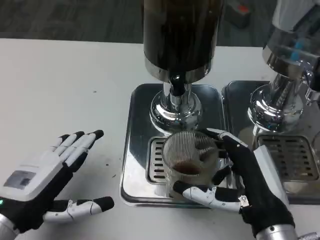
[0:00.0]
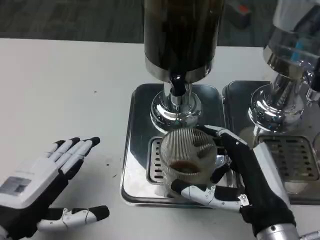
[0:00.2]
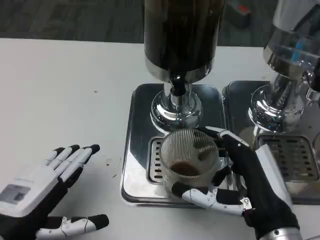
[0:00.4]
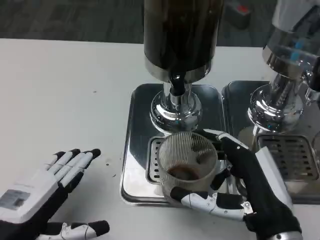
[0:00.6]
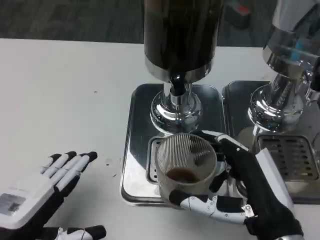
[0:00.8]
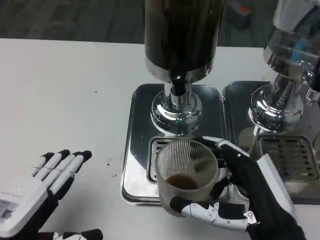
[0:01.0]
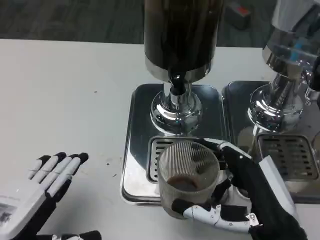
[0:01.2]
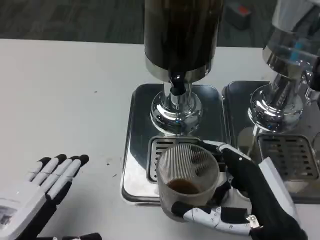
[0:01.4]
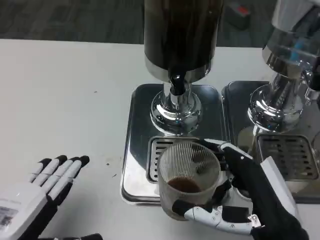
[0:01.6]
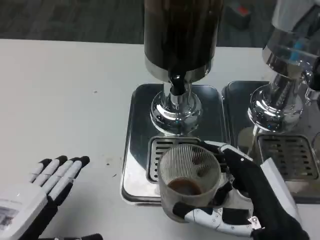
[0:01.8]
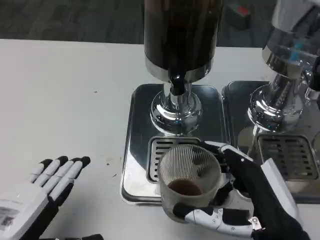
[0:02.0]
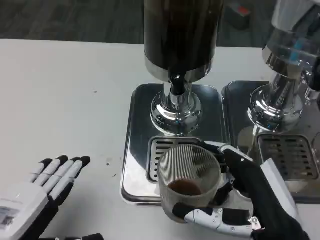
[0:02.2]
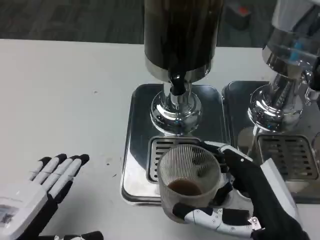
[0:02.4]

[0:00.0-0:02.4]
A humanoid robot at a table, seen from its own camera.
Task of the whole recording: Grasp the cup under the faucet to collect the drink, then remove the cup.
0:00.0 to 0:01.2: The left hand is displaced backward by roughly 5 cm.
0:01.2 to 0:02.4: Both hands stay about where they are.

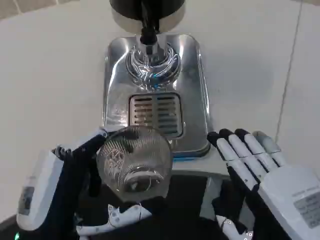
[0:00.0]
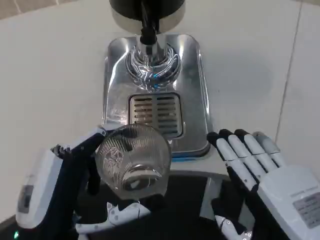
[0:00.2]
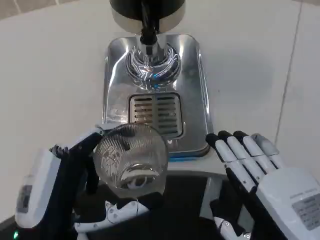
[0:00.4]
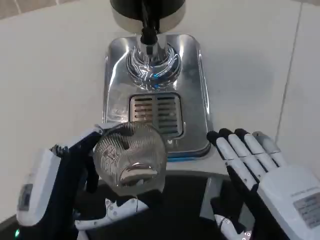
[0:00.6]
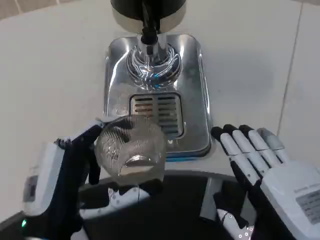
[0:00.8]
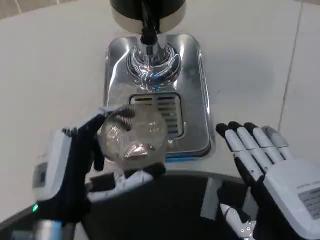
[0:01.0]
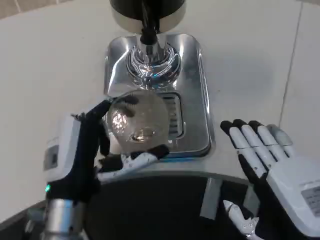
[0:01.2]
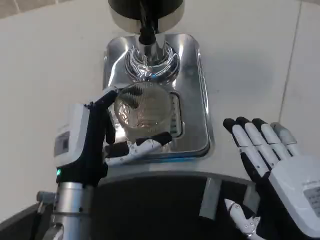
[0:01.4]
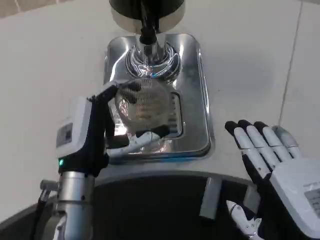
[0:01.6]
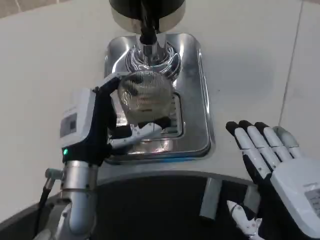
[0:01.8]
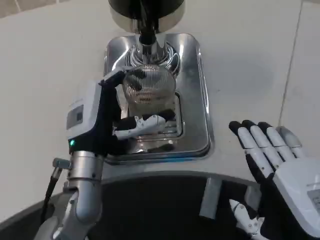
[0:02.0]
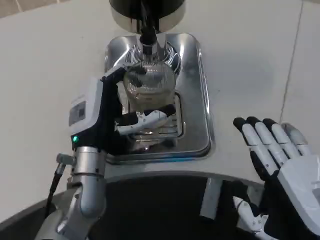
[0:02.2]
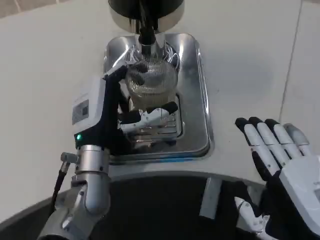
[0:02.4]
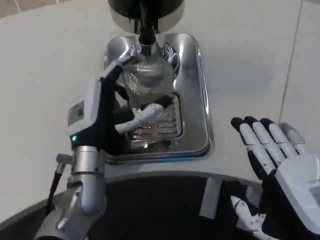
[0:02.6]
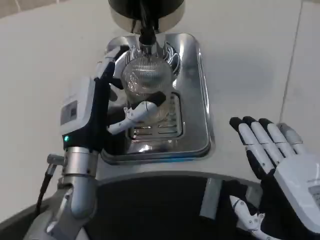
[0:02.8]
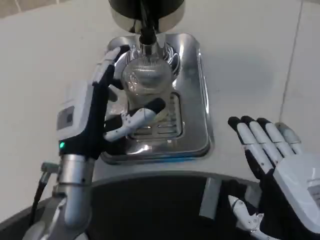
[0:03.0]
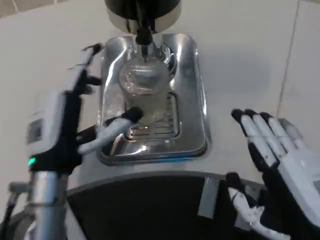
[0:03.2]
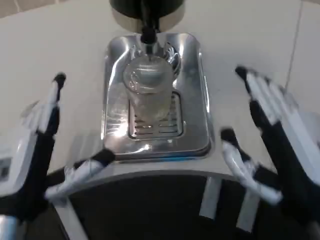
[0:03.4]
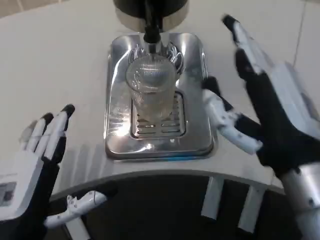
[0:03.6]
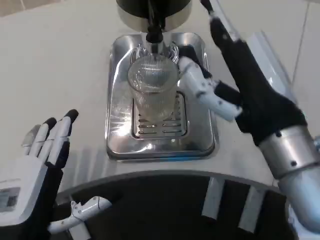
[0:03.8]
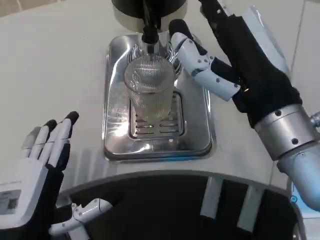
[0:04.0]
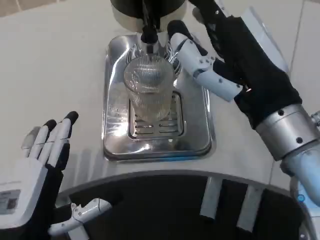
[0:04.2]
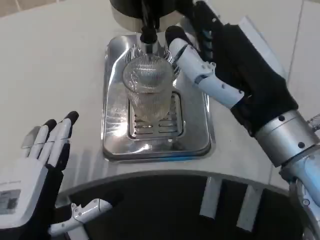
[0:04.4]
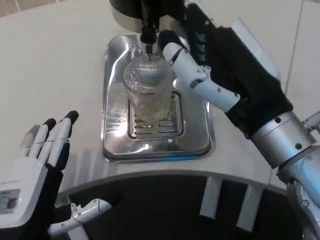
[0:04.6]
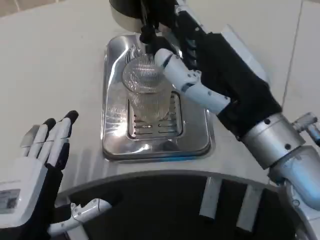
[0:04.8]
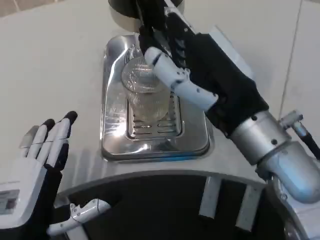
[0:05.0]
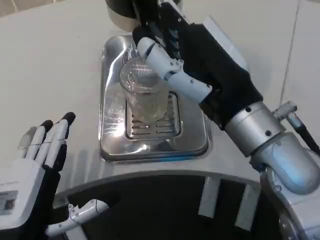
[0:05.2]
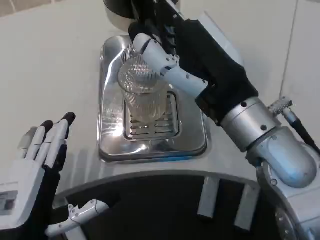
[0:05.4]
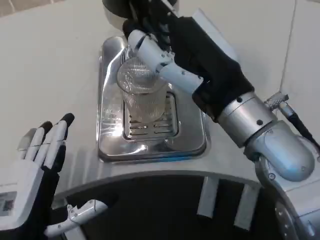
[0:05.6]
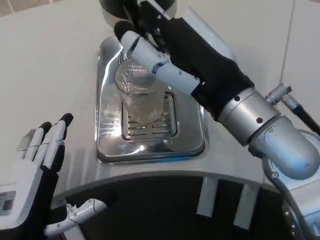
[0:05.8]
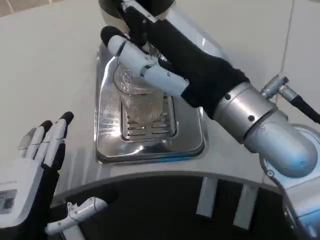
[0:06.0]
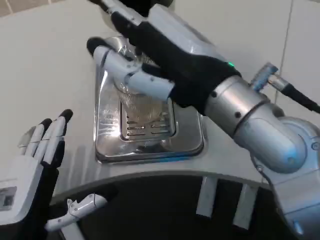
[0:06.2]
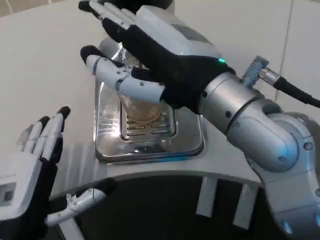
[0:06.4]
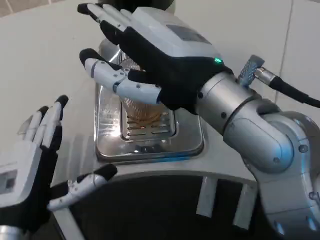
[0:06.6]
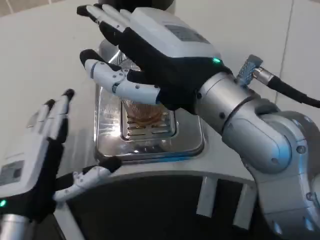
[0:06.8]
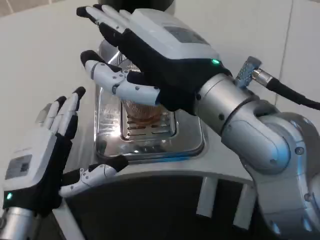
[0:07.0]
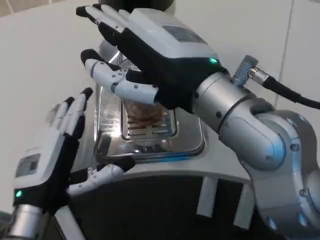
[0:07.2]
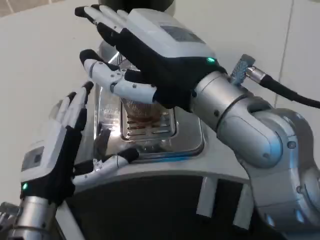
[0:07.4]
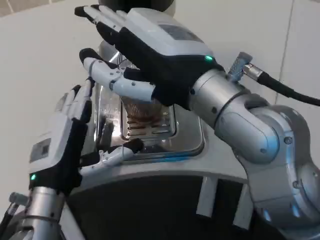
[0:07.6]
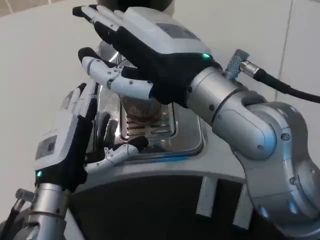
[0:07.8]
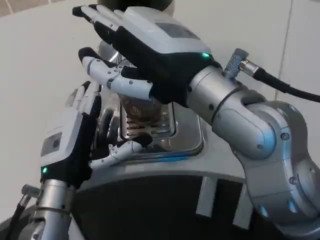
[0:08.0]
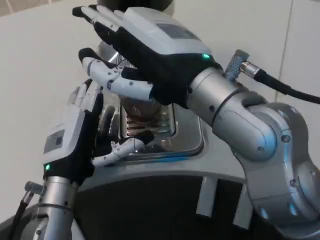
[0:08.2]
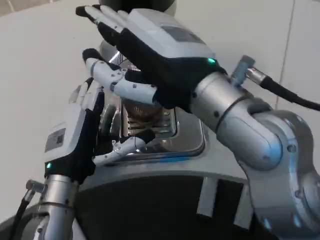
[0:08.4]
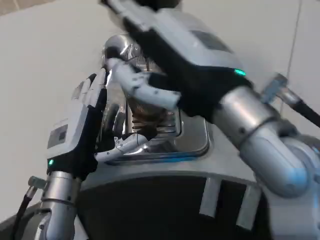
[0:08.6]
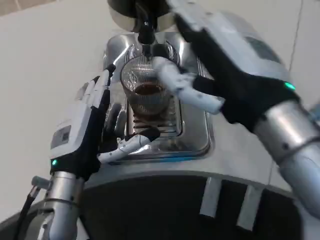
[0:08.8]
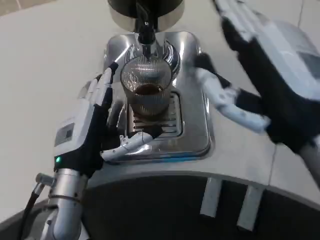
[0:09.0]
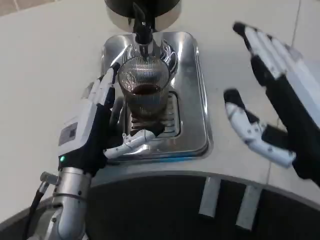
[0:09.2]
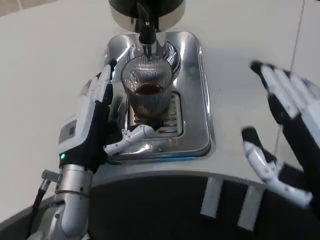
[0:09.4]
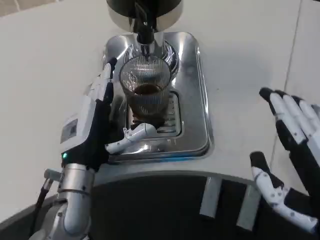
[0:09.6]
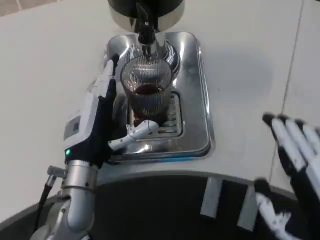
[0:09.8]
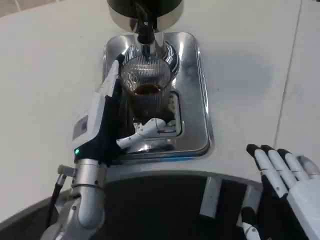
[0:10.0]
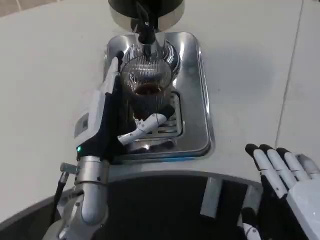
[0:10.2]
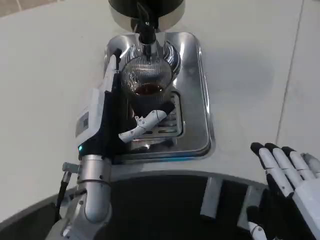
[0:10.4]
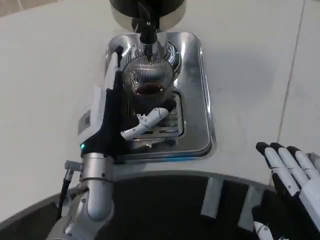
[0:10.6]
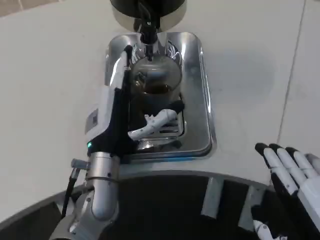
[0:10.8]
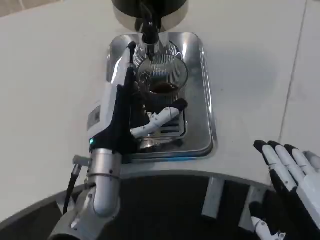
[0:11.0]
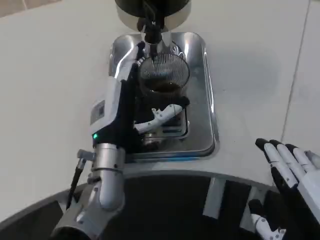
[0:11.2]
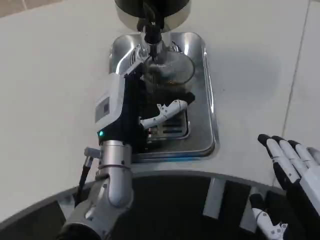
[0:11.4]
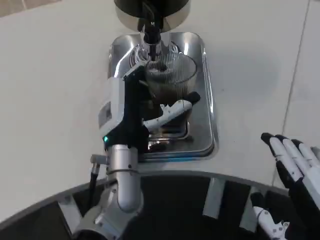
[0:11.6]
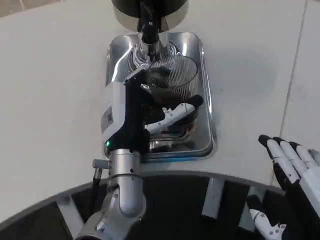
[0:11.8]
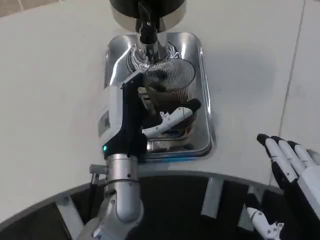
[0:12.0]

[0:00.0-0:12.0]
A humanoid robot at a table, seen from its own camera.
Task of the whole recording: Grasp the cup under the faucet to collect the drink, then remove the cup.
0:00.0 to 0:01.6: The left hand shifts approximately 10 cm forward.
0:01.6 to 0:03.0: The hands move only a little.
0:03.0 to 0:04.4: The left hand shifts about 15 cm backward and to the left. Meanwhile the right hand moves forward, upward and to the left, about 15 cm.
0:04.4 to 0:06.0: The right hand changes place by roughly 5 cm.
0:06.0 to 0:07.6: The left hand moves forward, about 10 cm.
0:07.6 to 0:09.0: The right hand shifts some 10 cm to the right and backward.
0:09.0 to 0:10.4: The right hand heads downward and backward, covering about 10 cm.

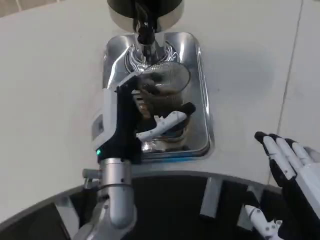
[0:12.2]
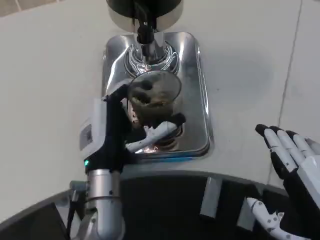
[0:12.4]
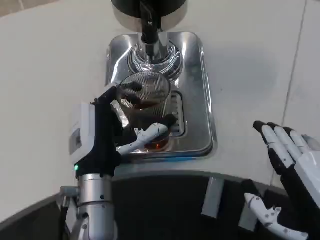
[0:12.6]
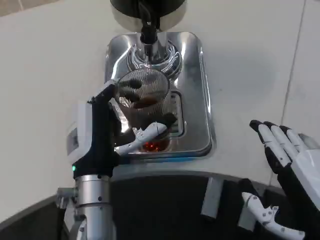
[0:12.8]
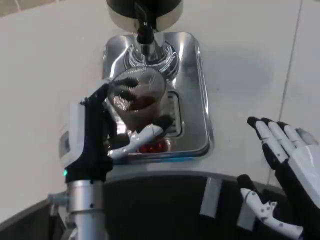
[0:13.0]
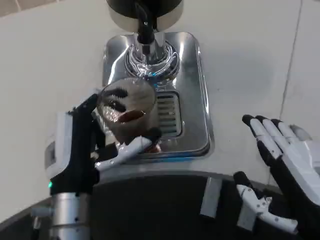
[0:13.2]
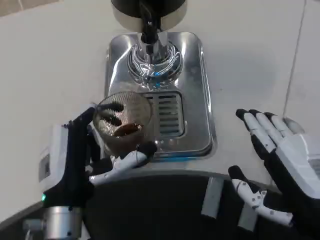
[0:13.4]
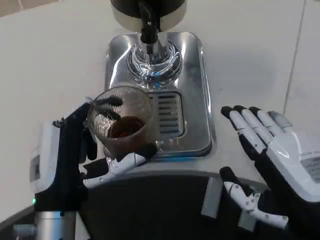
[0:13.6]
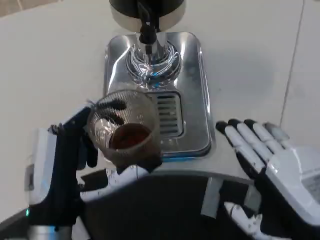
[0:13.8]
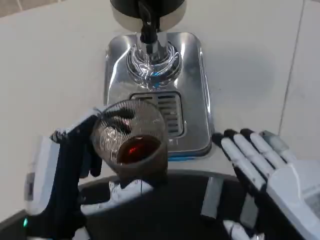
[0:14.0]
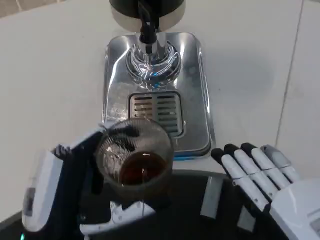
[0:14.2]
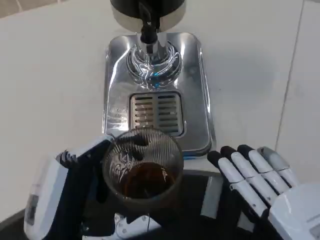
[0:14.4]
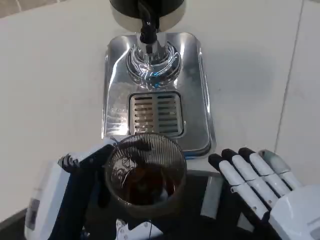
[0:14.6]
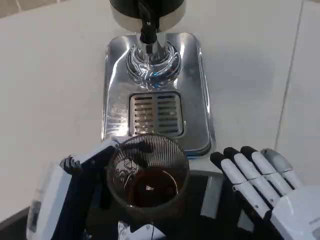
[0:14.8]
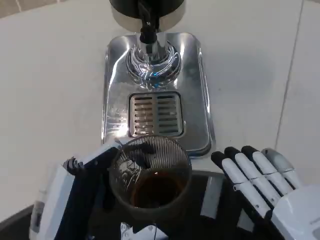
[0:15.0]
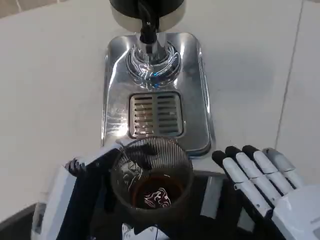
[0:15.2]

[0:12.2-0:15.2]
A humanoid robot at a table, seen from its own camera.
Task of the whole recording: Grasp the cup under the faucet to collect the drink, then remove the cup.
0:12.2 to 0:13.8: The left hand travels backward and to the left by some 15 cm.
0:13.8 to 0:15.2: The left hand moves backward, approximately 5 cm. The right hand ends up some 5 cm from where it was.

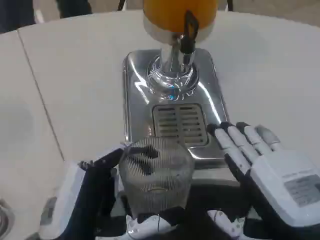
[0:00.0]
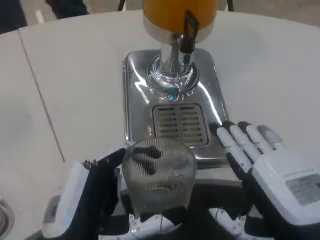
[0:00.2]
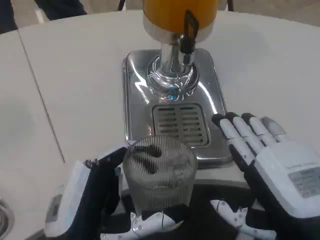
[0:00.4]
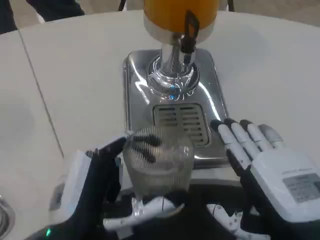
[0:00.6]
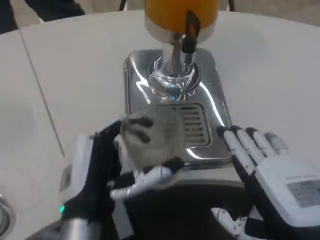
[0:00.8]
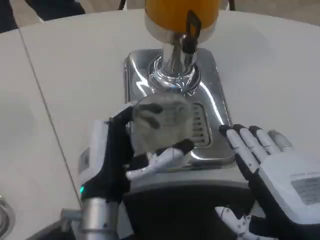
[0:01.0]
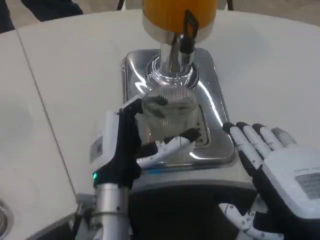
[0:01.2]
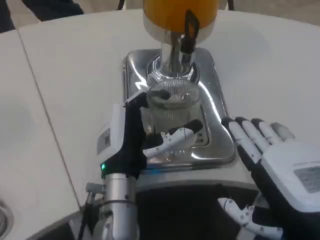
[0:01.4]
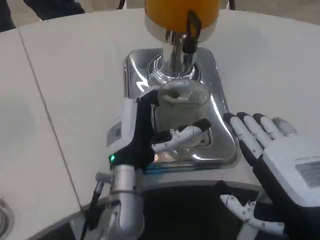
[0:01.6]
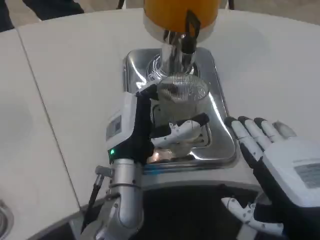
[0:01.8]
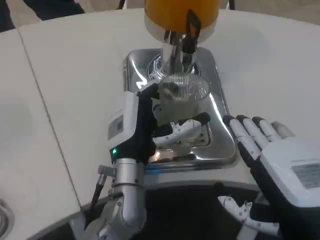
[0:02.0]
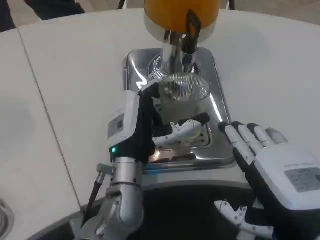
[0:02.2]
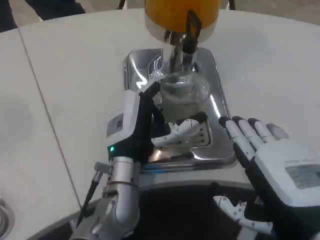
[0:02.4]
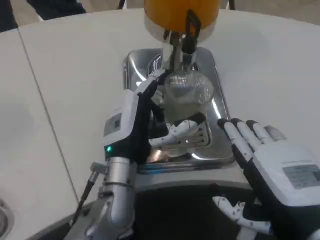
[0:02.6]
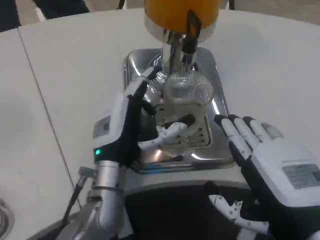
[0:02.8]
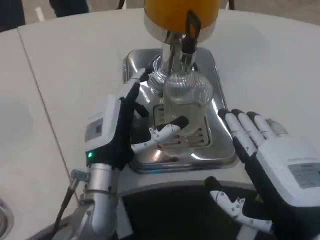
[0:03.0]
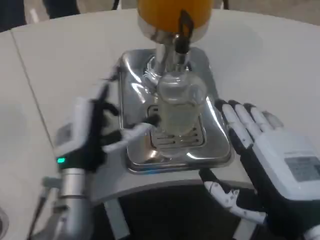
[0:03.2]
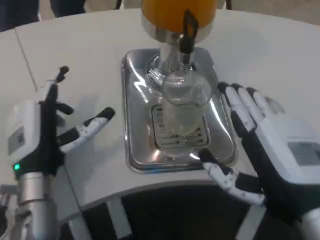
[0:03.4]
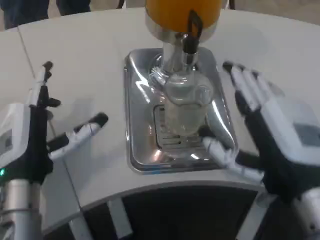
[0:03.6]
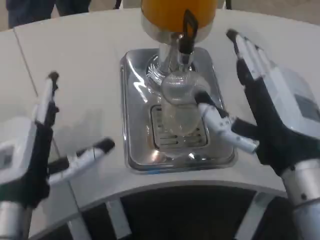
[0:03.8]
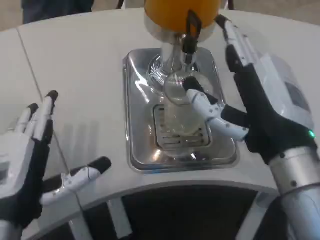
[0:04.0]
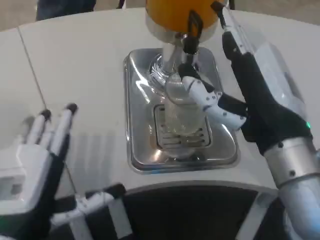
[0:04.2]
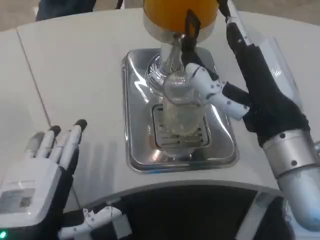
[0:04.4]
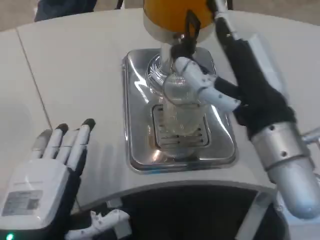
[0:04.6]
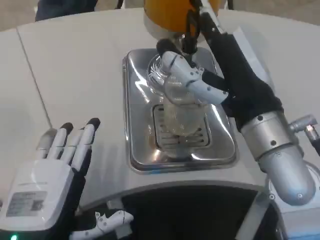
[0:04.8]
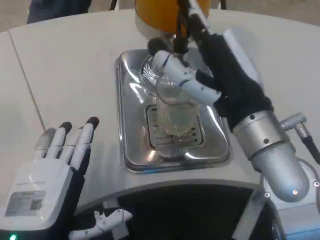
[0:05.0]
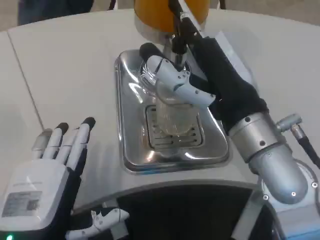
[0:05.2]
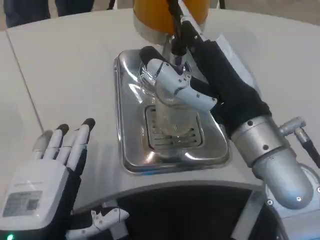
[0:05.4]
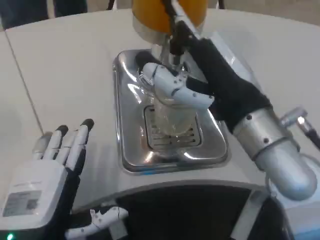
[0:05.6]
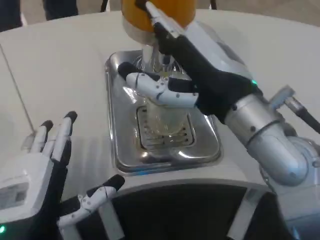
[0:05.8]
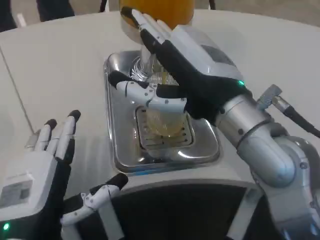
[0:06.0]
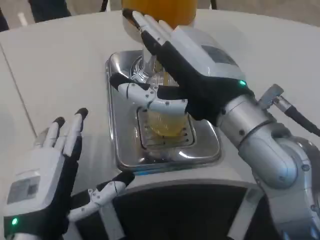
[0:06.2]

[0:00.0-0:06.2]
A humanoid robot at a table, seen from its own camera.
Task of the whole recording: Grasp the cup under the faucet to collect the drink, then remove the cup.
0:00.0 to 0:01.6: The left hand travels forward and to the right by roughly 20 cm.
0:01.6 to 0:03.2: The left hand travels to the left by some 10 cm.
0:03.2 to 0:04.6: The left hand is displaced backward by some 15 cm. Meanwhile the right hand shifts roughly 10 cm forward and upward.
